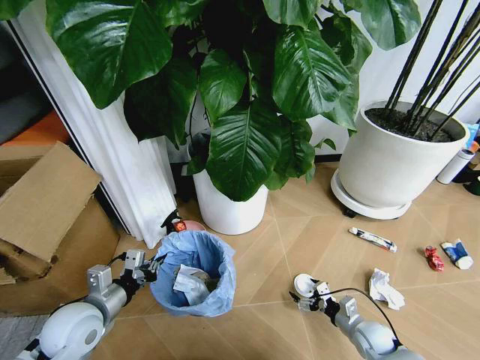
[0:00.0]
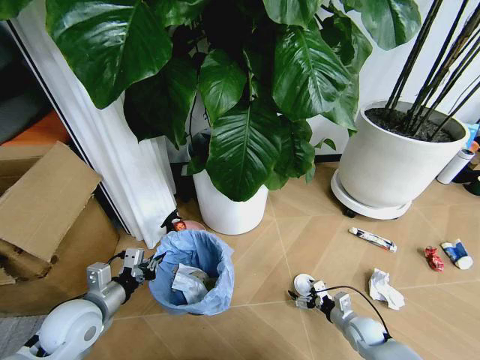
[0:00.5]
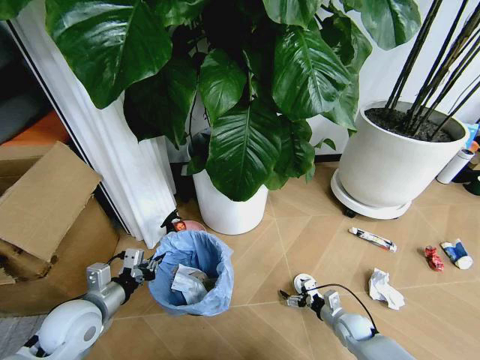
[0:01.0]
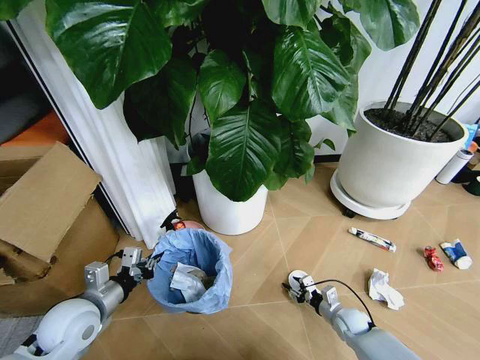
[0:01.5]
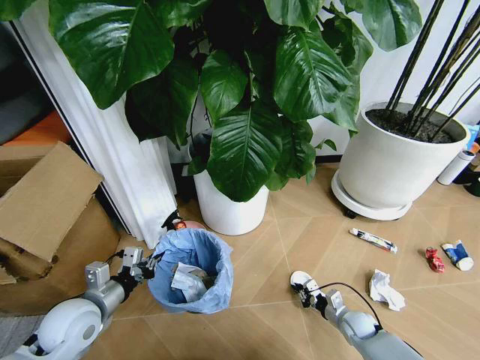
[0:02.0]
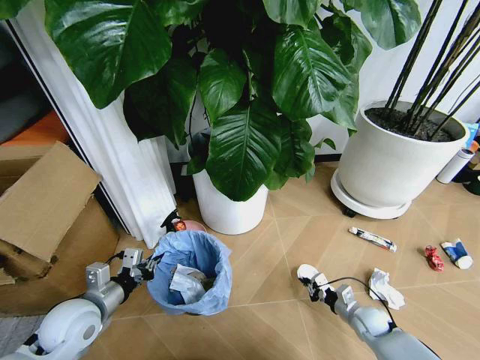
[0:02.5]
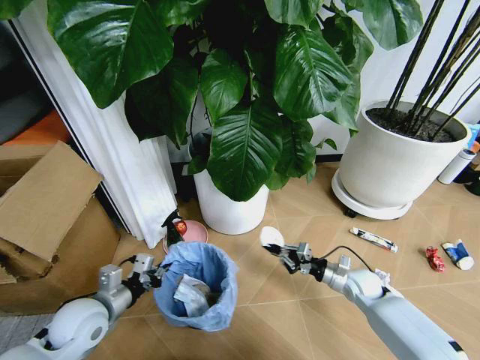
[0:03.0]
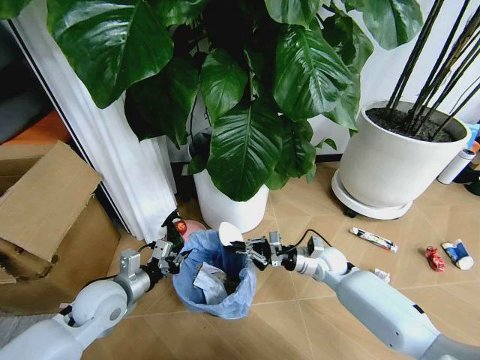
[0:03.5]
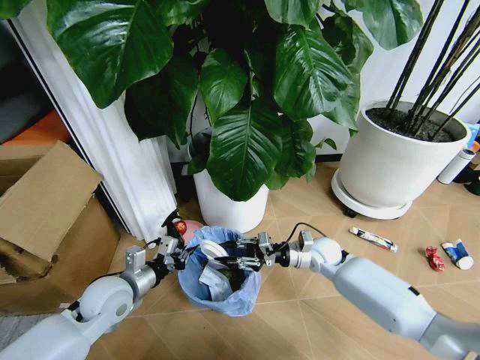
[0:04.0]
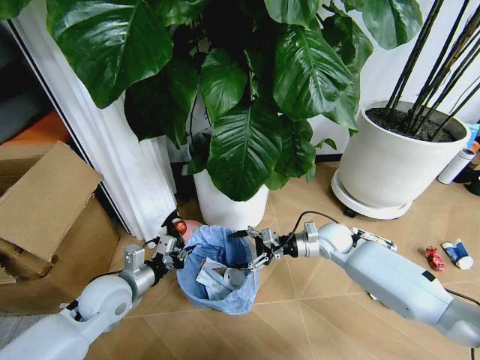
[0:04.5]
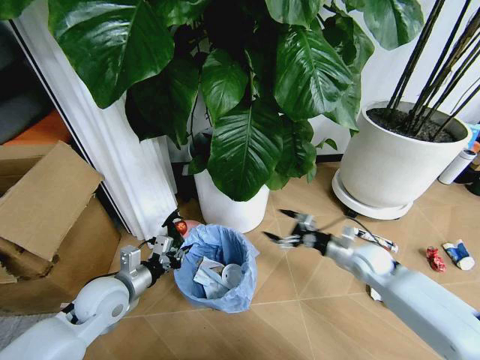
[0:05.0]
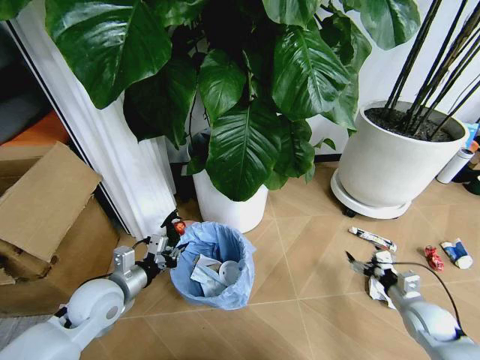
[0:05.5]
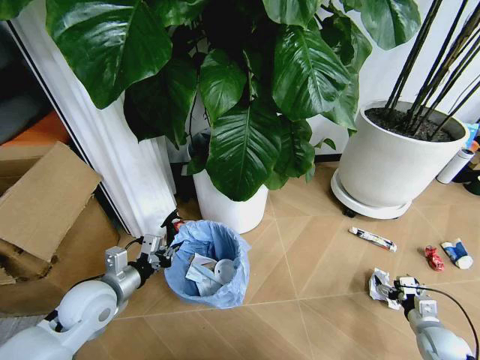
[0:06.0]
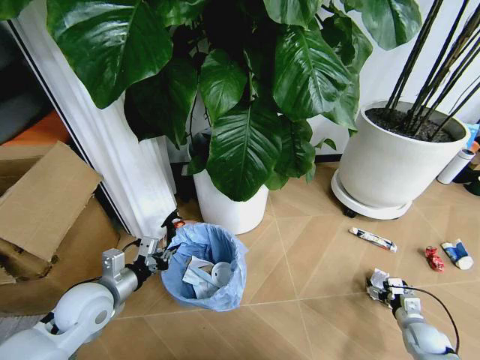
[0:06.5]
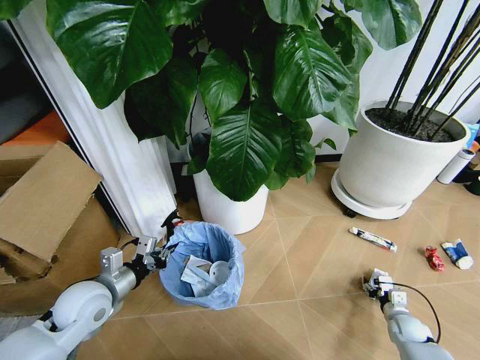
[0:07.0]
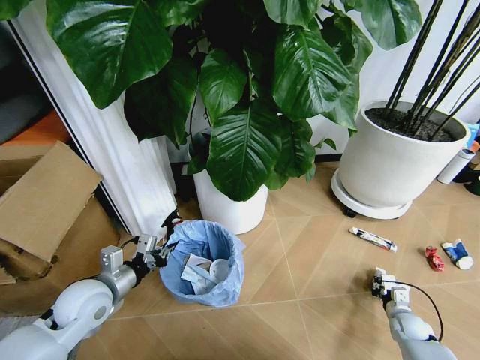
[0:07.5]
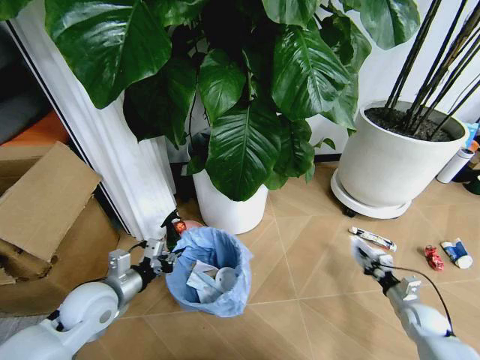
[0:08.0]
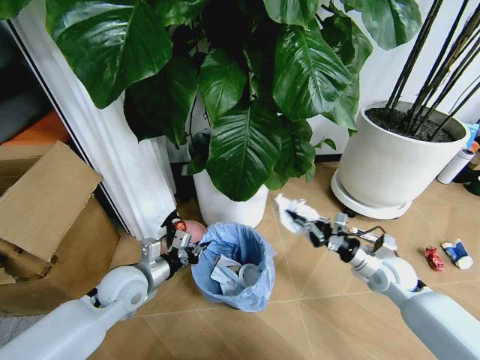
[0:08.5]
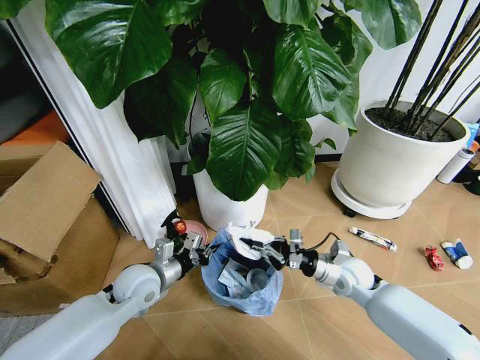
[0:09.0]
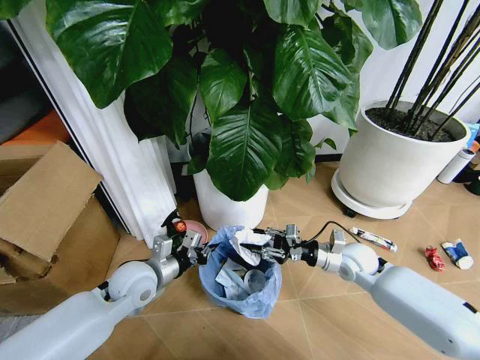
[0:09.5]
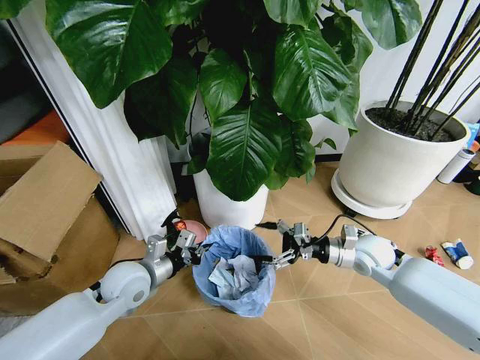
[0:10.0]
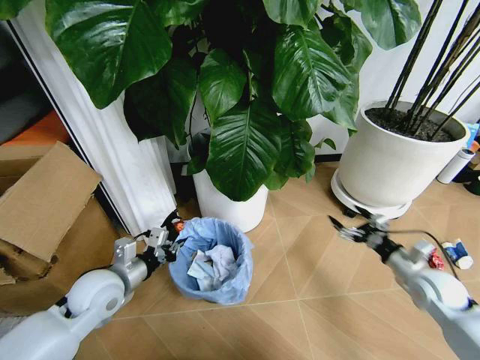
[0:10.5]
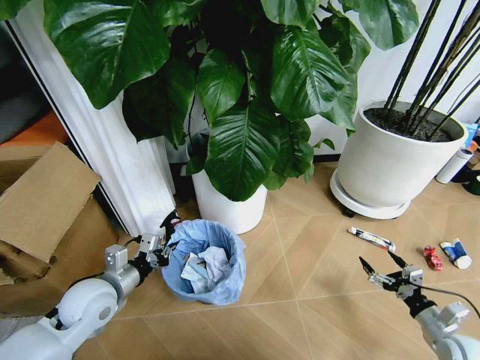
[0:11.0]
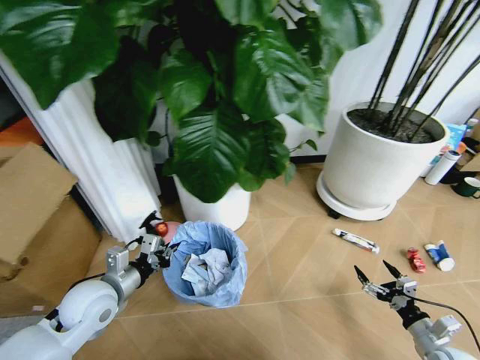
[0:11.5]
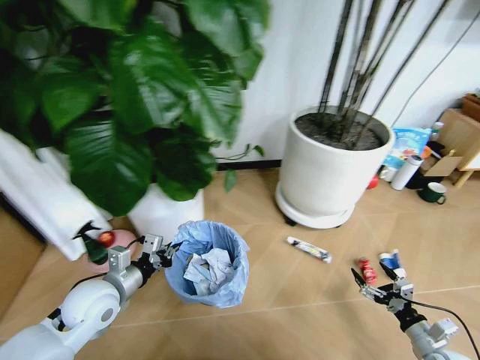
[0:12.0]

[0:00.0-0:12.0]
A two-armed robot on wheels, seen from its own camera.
Task of the whole recording: Pick up the trash bin and place the garbage on the floor into it.
0.0 to 2.0 s: The right gripper moves some 5 cm, and closes up.
2.0 to 4.0 s: The left gripper changes place by about 5 cm, while the right gripper shifts about 25 cm upward, forward and to the left.
4.0 to 6.0 s: The right gripper travels to the right, backward and downward by about 35 cm, and opens.
6.0 to 8.0 s: The right gripper is displaced forward by about 5 cm, and closes up.
8.0 to 10.0 s: The right gripper heads upward, to the left and forward, covering some 30 cm, and opens up. Meanwhile the left gripper goes some 5 cm to the right.
10.0 to 12.0 s: The left gripper is displaced to the left by roughly 5 cm. Meanwhile the right gripper heads backward, to the right and downward, covering roughly 30 cm.

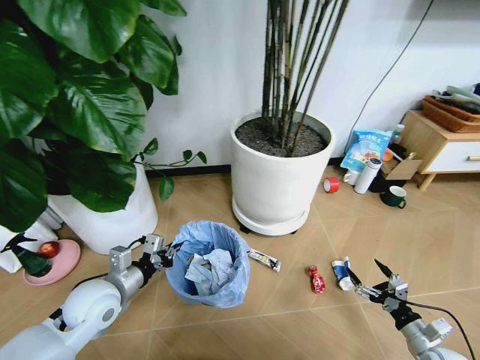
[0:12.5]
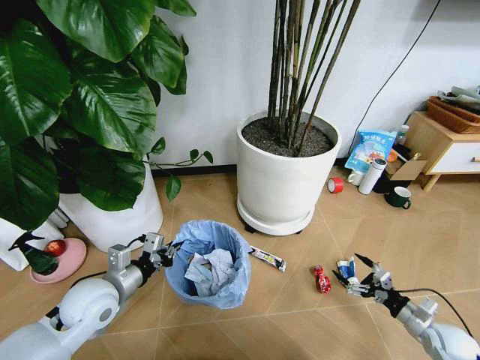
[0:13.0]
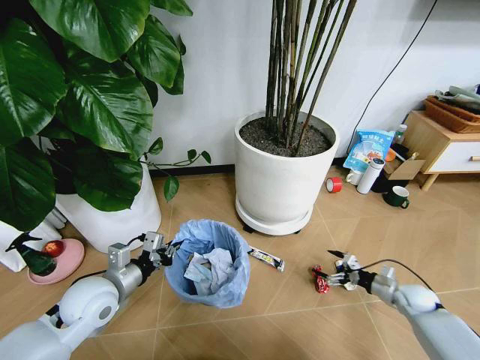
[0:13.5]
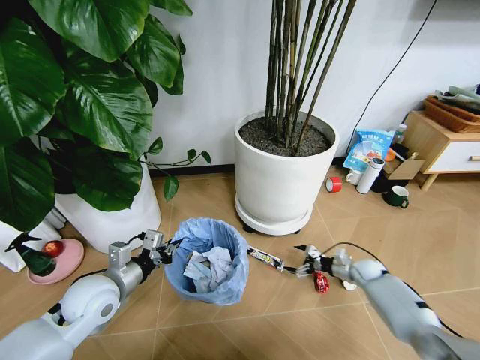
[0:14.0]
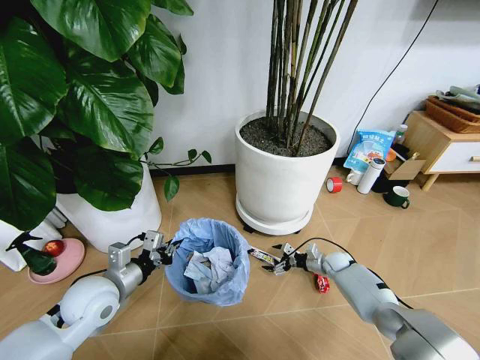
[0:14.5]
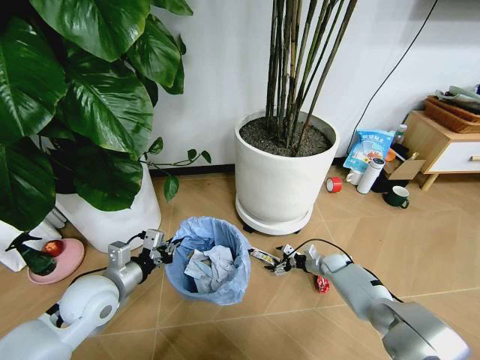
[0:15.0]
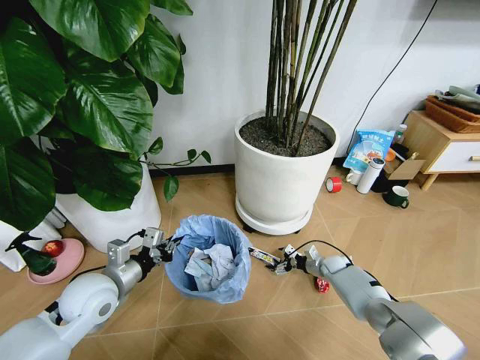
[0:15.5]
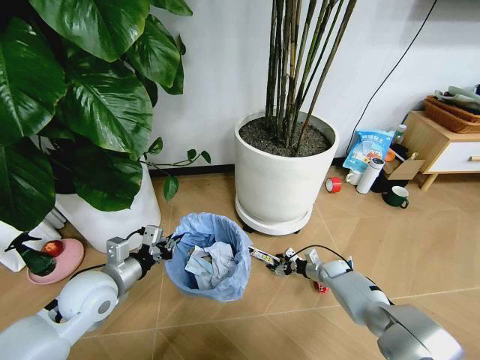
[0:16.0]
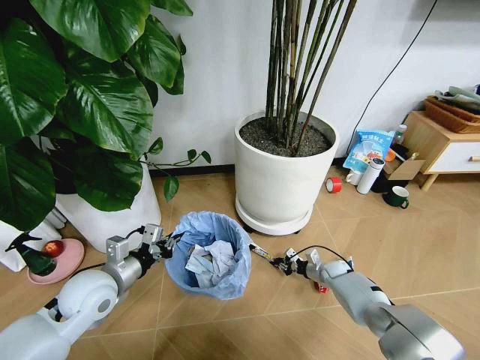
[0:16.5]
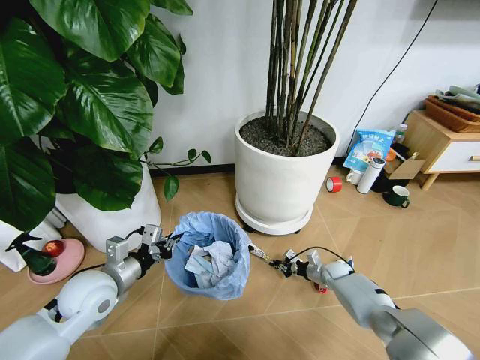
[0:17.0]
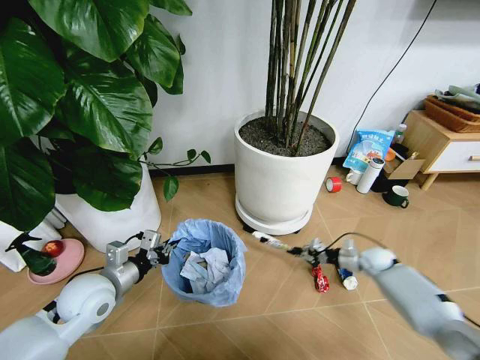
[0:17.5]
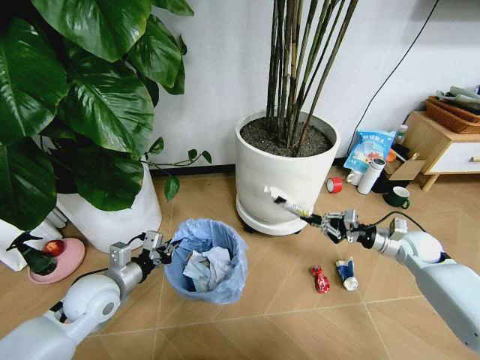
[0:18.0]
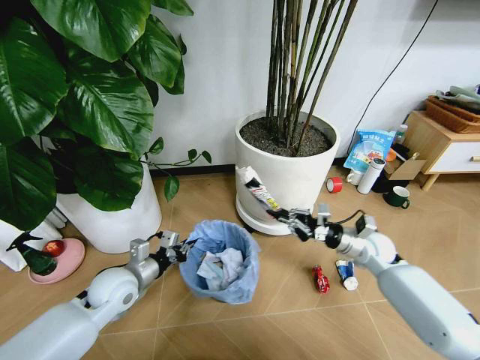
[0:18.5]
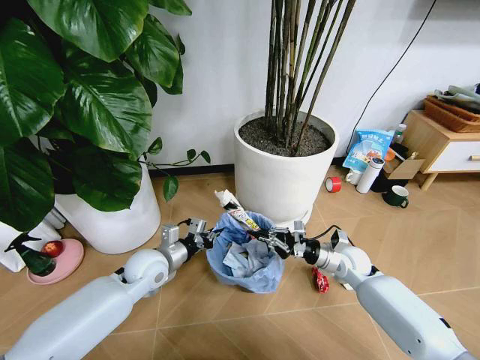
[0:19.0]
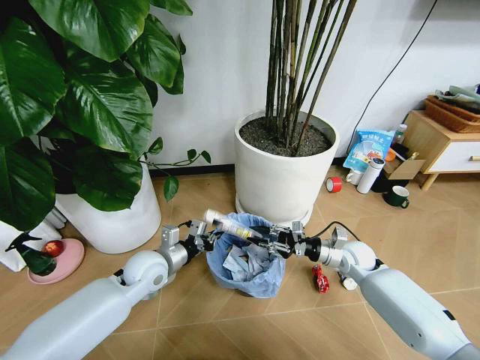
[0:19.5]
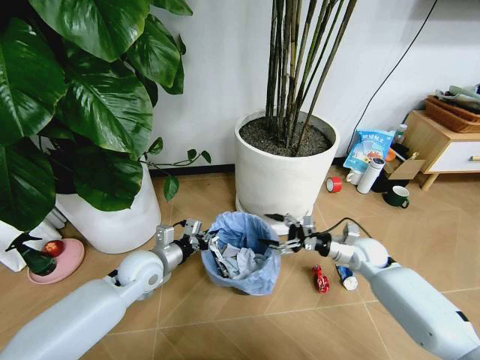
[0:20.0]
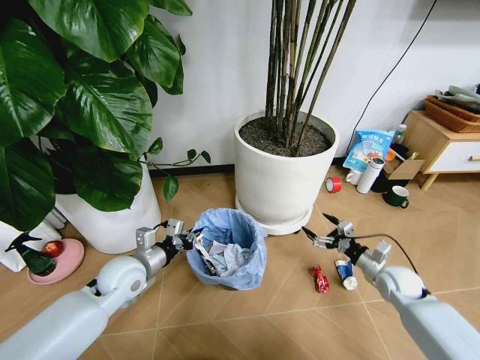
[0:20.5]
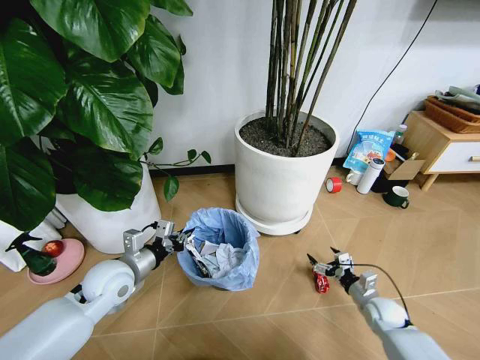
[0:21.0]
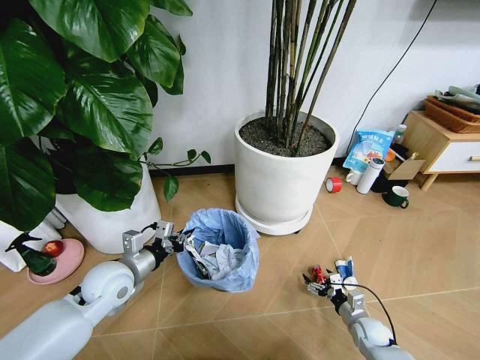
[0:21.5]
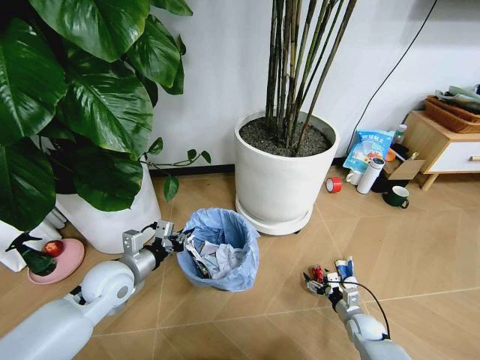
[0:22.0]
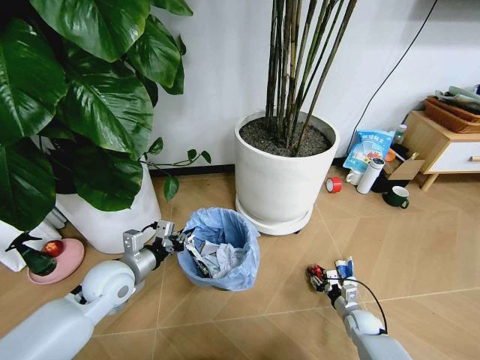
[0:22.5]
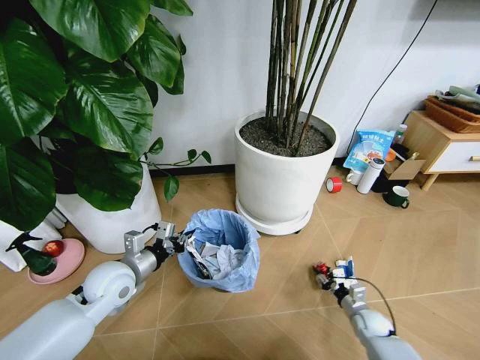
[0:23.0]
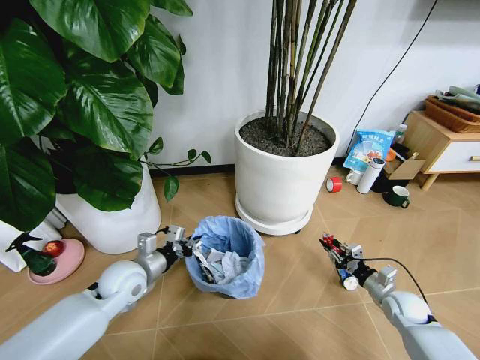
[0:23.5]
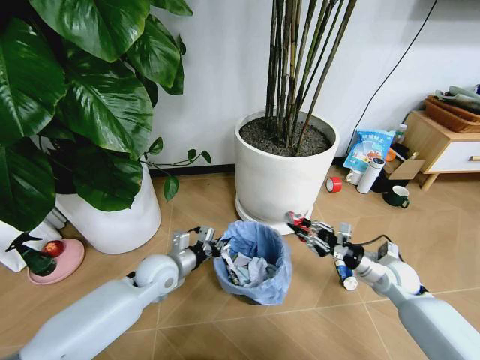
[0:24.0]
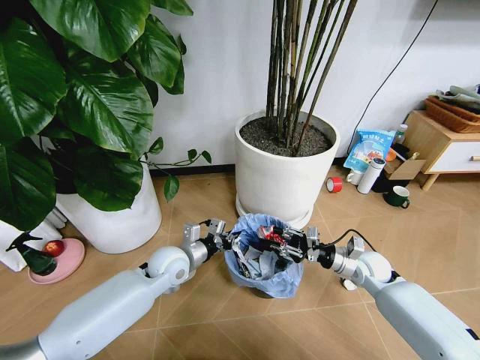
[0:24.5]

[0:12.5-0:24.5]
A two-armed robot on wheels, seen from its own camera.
Task of the whole recording: Pick up the trash bin and place the garbage on the floor into it.
12.5 to 14.5 s: The right gripper shifts about 30 cm forward and to the left.
14.5 to 16.5 s: The right gripper closes.
16.5 to 18.5 s: The left gripper shifts roughly 5 cm downward. Meanwhile the right gripper travels upward by about 25 cm.
18.5 to 20.5 s: The right gripper shifts roughly 10 cm to the right, downward and backward, and opens its fingers.
20.5 to 22.5 s: The right gripper heads downward, covering about 20 cm, and closes.
22.5 to 24.5 s: The left gripper moves to the right and forward, approximately 10 cm. Meanwhile the right gripper heads upward and forward, covering about 20 cm.

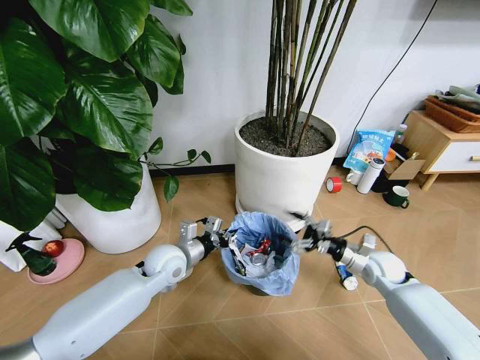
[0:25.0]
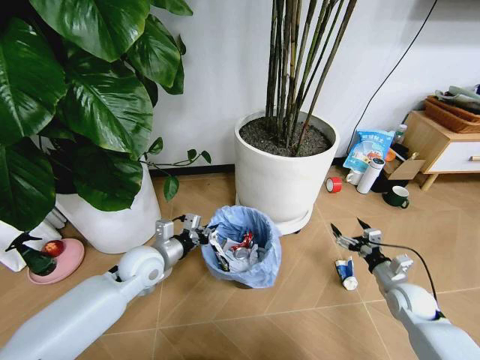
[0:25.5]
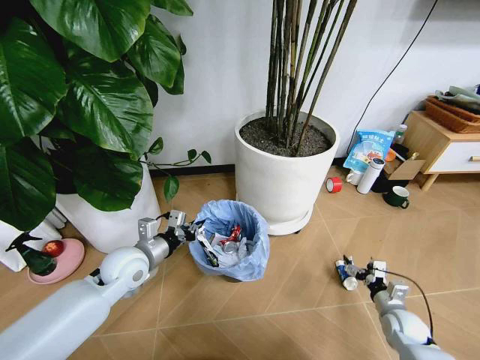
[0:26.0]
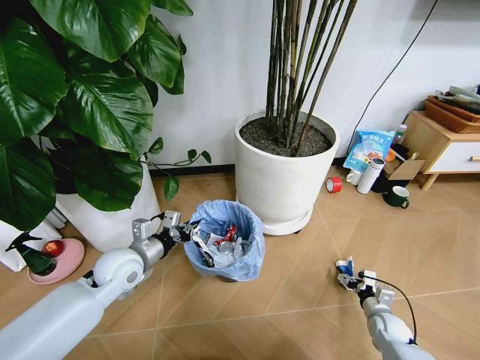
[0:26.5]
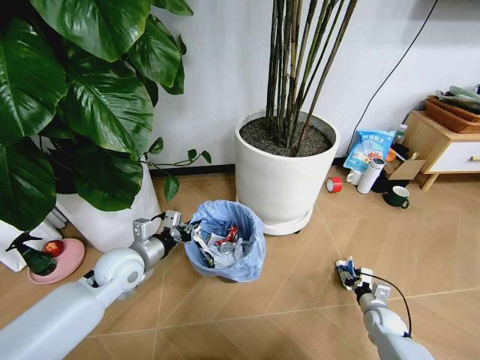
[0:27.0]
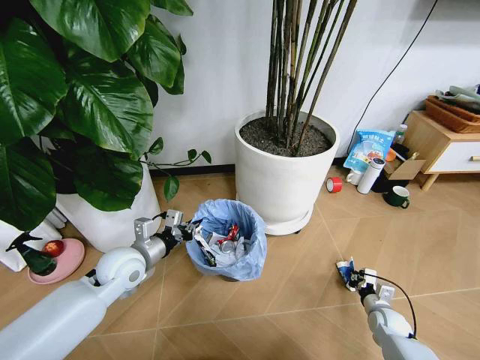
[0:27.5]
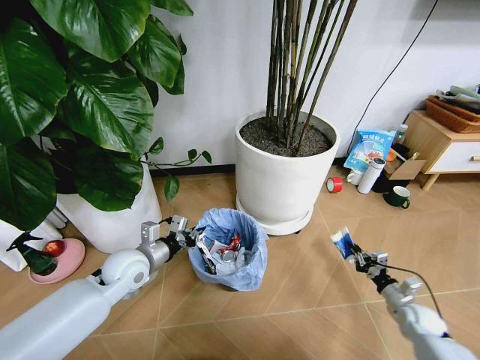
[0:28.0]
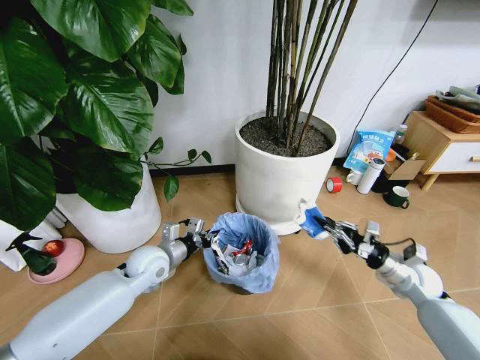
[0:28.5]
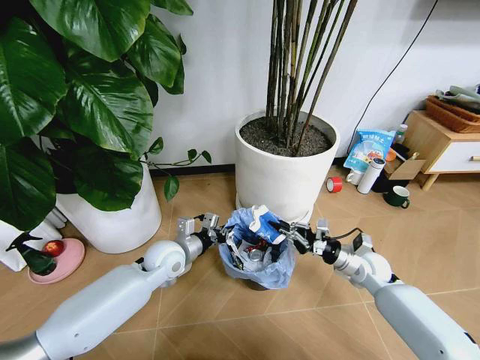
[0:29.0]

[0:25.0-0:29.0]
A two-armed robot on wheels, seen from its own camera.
Task of the whole recording: Pick up the trash bin and place the garbage on the floor into it.
25.0 to 27.0 s: The right gripper heads downward and backward, covering approximately 20 cm, and closes, while the left gripper shifts about 10 cm to the left.
27.0 to 29.0 s: The right gripper goes about 20 cm upward, forward and to the left, and closes. Meanwhile the left gripper shifts approximately 10 cm to the right.
